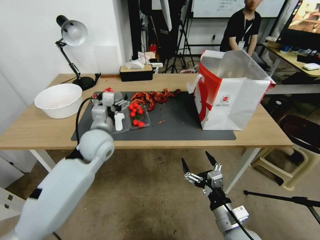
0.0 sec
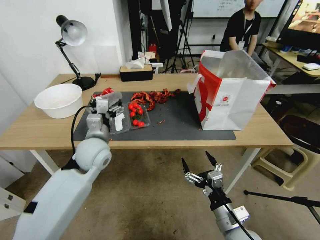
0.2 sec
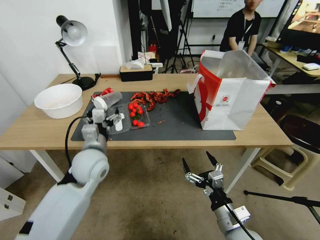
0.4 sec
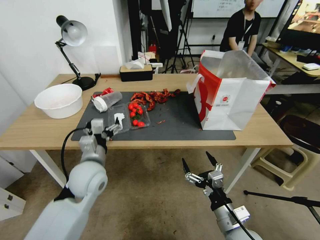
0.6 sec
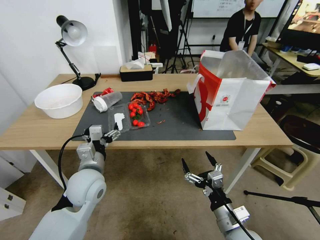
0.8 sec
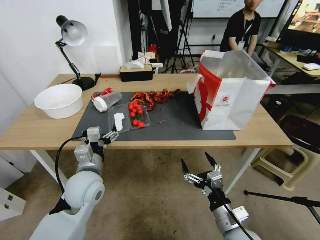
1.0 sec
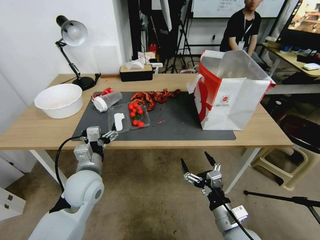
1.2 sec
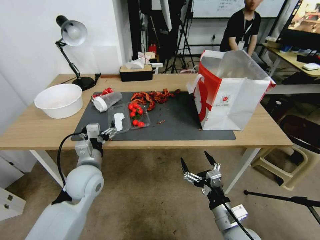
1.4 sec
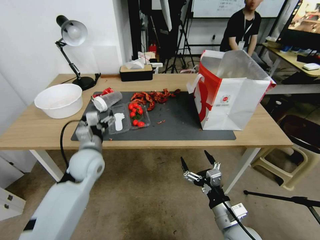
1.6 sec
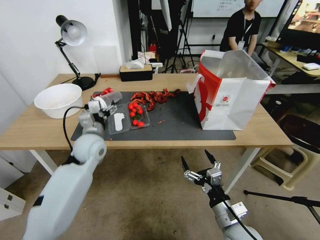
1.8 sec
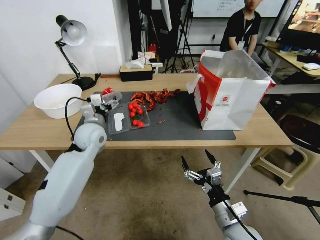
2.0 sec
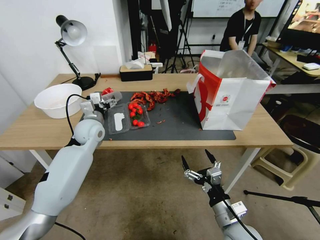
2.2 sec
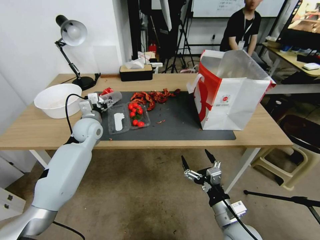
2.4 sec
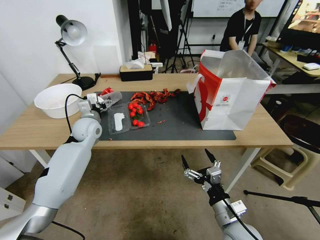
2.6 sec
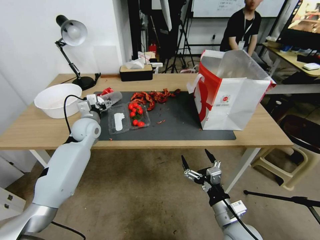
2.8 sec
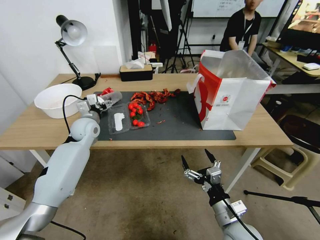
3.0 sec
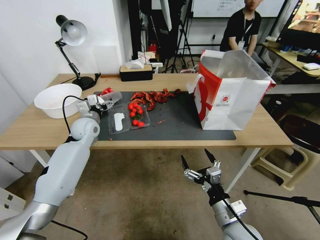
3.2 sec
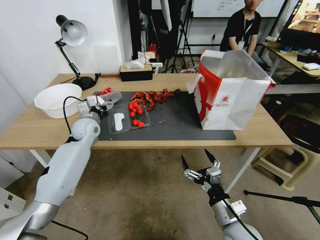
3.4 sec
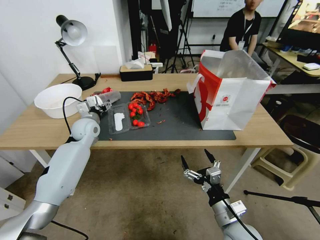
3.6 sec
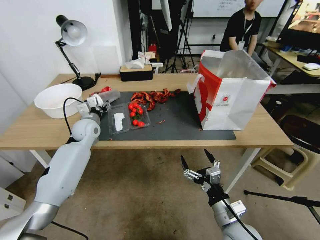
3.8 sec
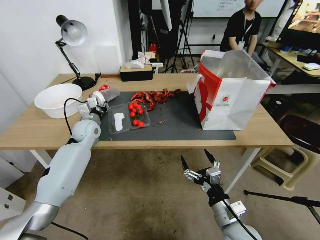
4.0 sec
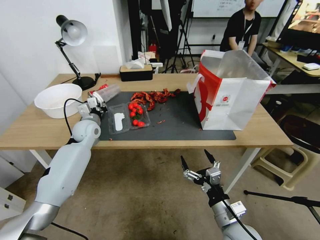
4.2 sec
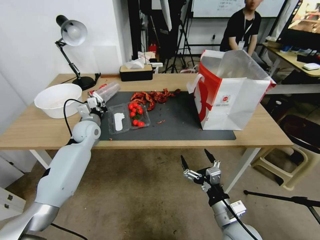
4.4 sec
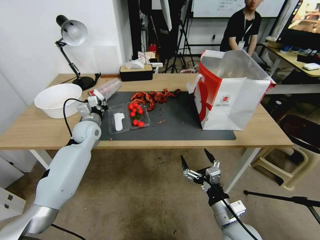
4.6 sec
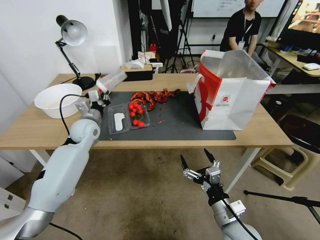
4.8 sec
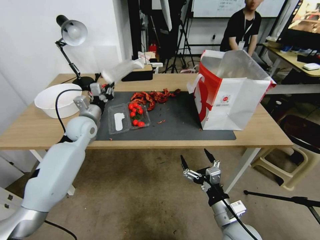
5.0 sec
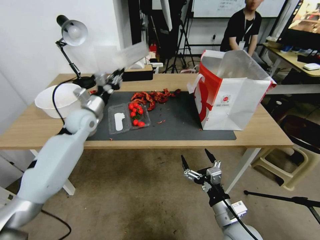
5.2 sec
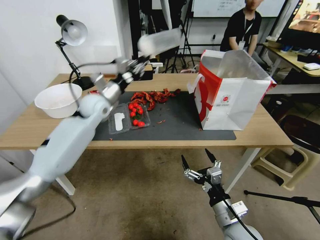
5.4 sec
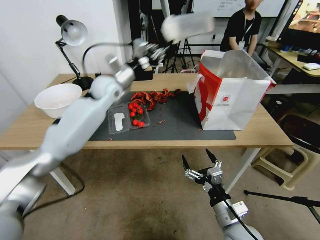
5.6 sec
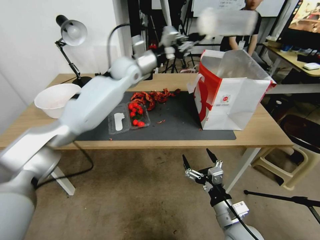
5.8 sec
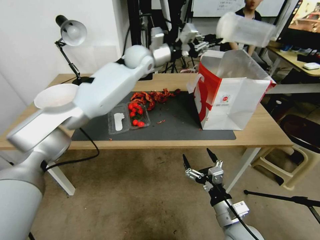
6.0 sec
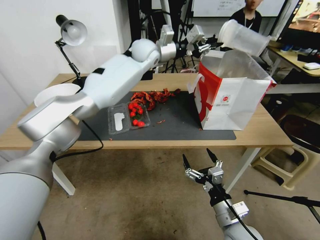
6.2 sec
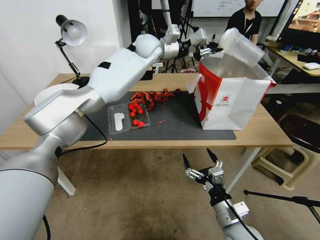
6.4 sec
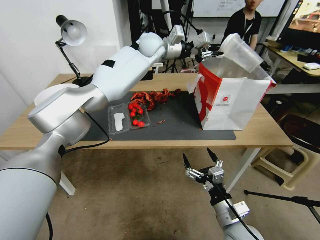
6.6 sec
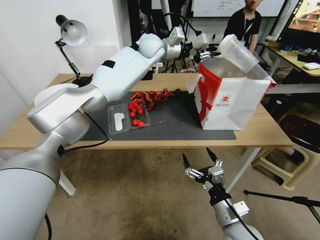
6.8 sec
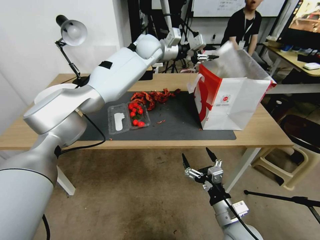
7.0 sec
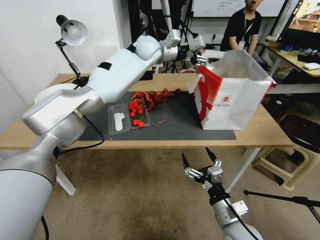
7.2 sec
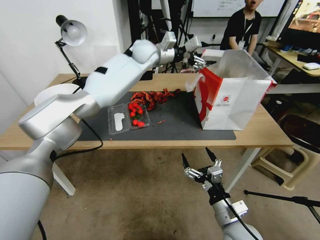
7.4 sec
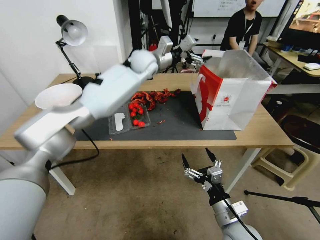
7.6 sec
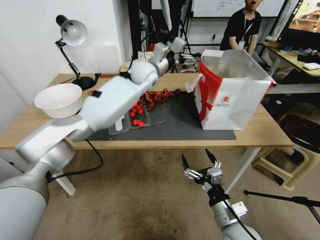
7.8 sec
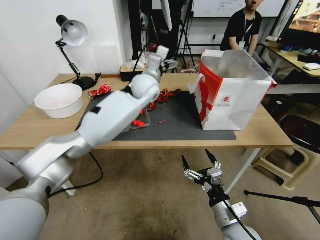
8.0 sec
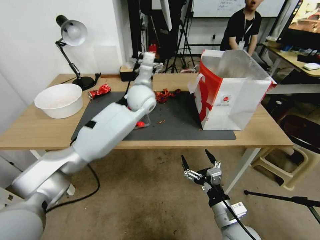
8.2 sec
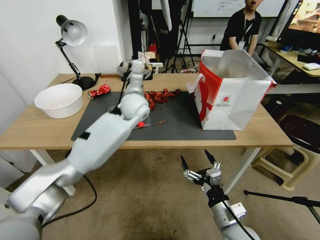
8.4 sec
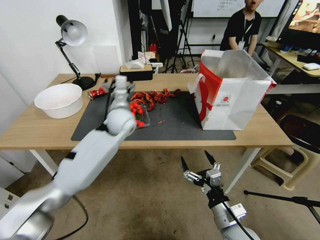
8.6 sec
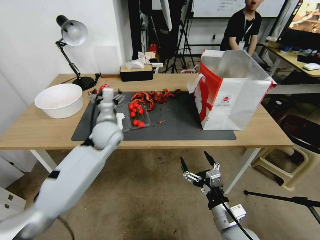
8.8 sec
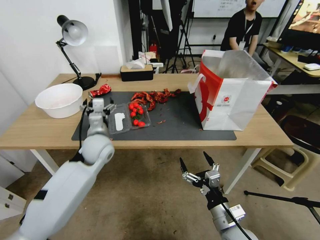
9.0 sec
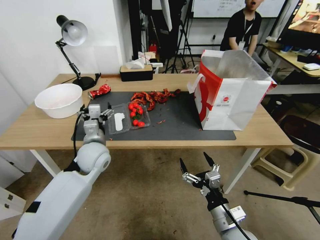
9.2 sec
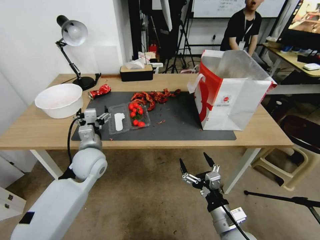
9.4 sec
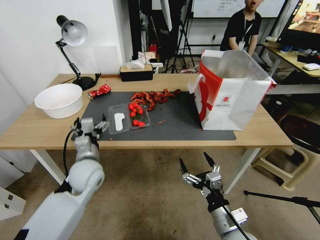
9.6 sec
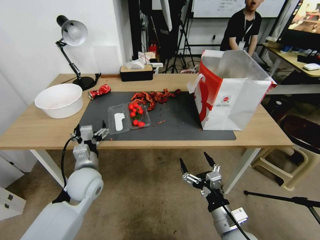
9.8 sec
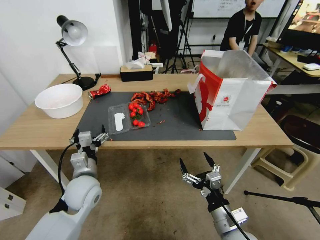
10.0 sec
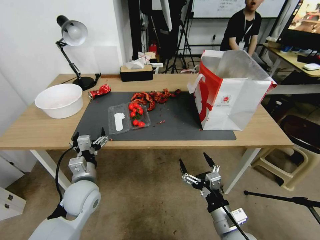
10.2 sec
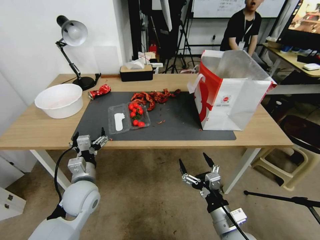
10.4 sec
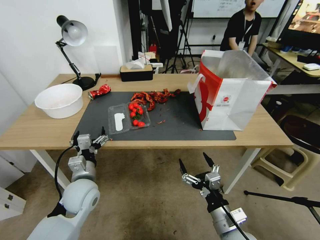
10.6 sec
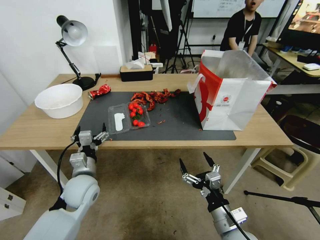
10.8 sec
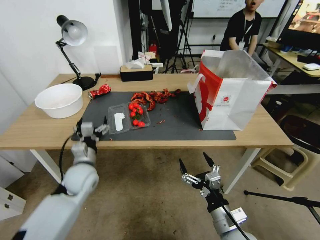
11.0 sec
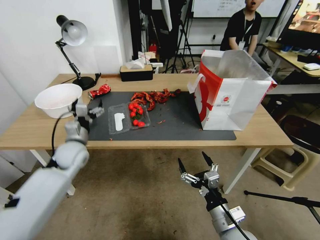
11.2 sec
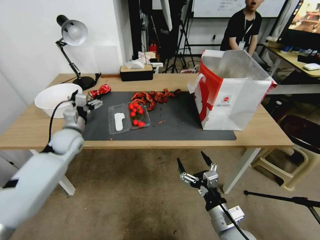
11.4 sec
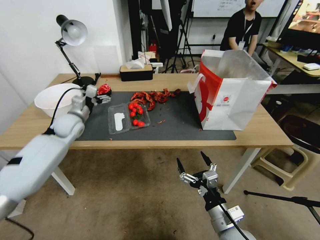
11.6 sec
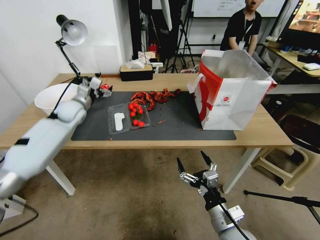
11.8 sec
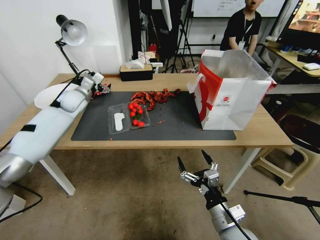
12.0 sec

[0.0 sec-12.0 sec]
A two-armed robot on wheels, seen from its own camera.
0.0 sec to 1.6 sec: The left gripper heads downward, covering some 5 cm, and reaches about 10 cm backward, then returns.
1.6 sec to 3.0 sec: The left gripper shifts some 15 cm forward and to the left.
3.0 sec to 4.4 sec: The left gripper closes.
4.4 sec to 6.0 sec: The left gripper shifts roughly 35 cm upward, to the right and forward.
6.0 sec to 7.6 sec: The left gripper opens its fingers.
7.6 sec to 9.0 sec: The left gripper goes about 35 cm backward, downward and to the left.
9.0 sec to 10.4 sec: The left gripper travels backward and downward by about 15 cm.
10.4 sec to 12.0 sec: The left gripper goes about 30 cm forward.

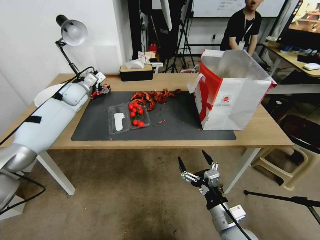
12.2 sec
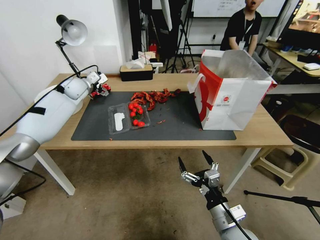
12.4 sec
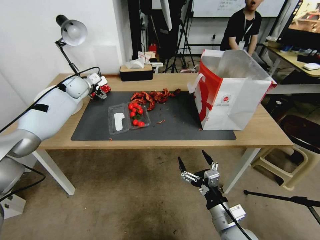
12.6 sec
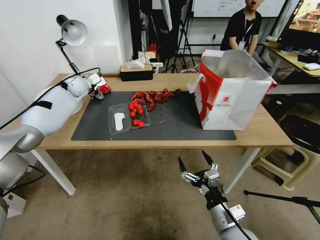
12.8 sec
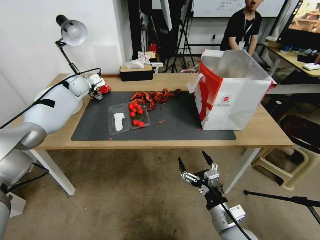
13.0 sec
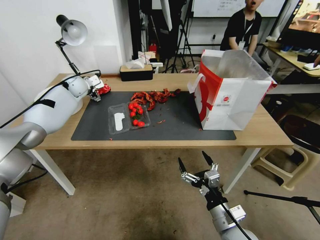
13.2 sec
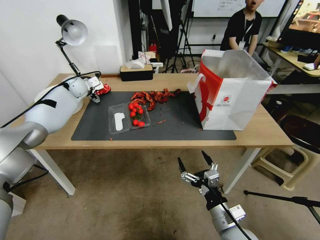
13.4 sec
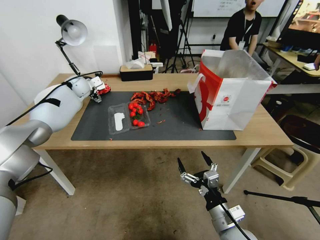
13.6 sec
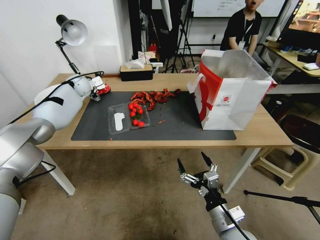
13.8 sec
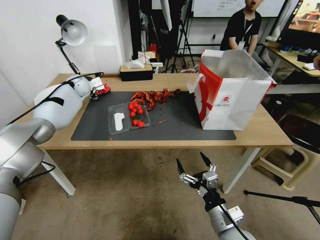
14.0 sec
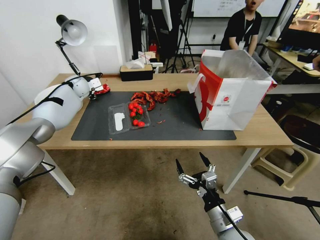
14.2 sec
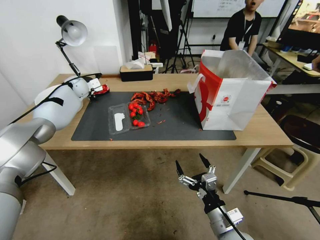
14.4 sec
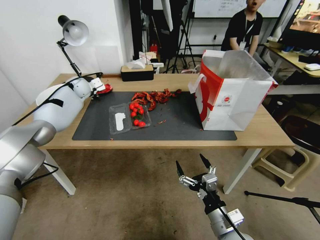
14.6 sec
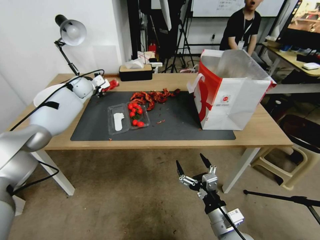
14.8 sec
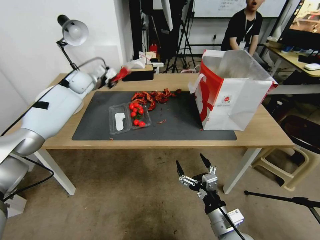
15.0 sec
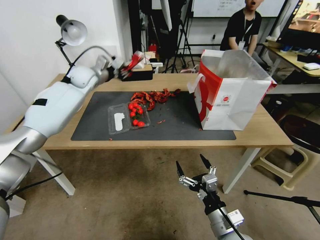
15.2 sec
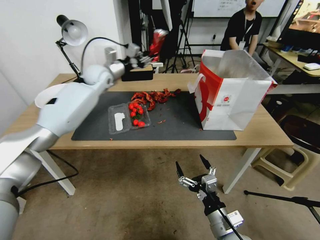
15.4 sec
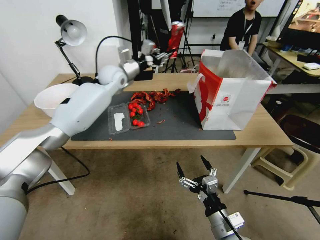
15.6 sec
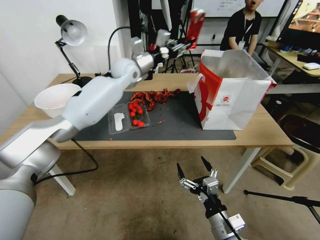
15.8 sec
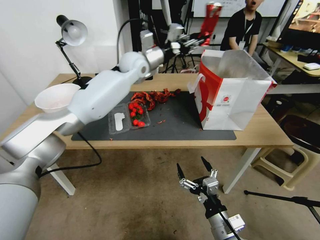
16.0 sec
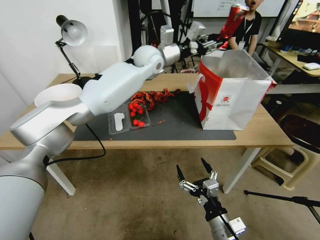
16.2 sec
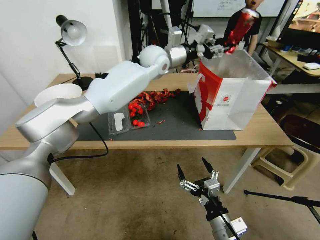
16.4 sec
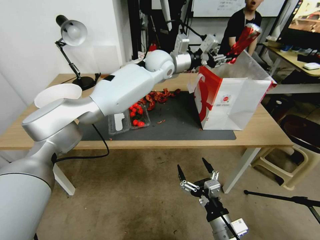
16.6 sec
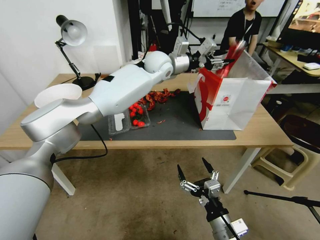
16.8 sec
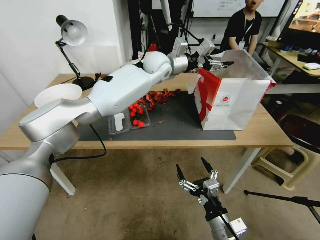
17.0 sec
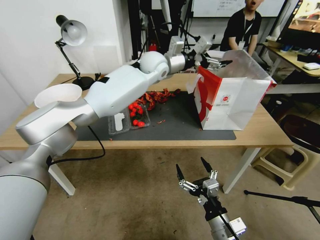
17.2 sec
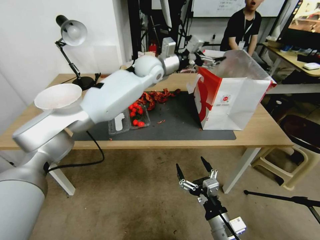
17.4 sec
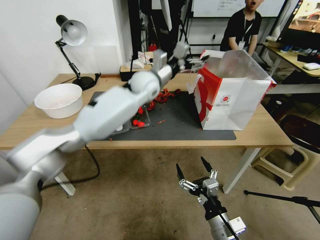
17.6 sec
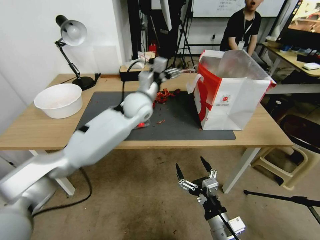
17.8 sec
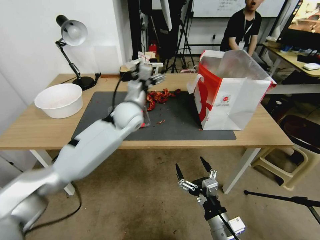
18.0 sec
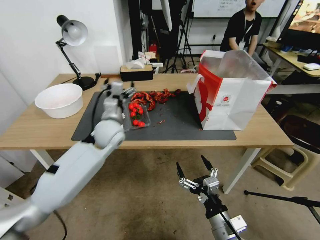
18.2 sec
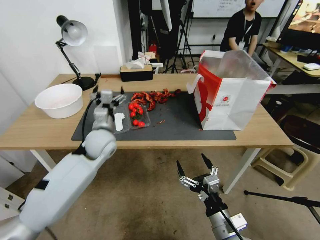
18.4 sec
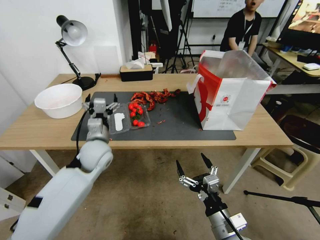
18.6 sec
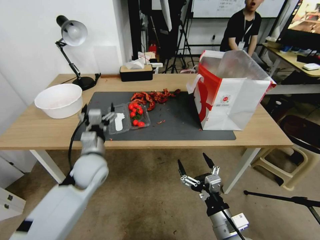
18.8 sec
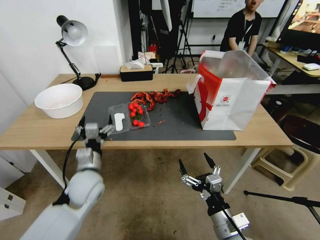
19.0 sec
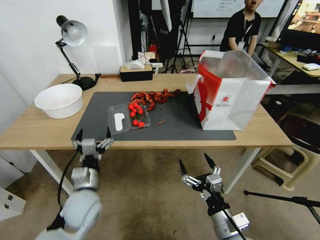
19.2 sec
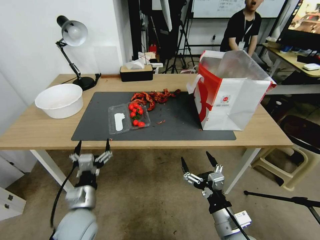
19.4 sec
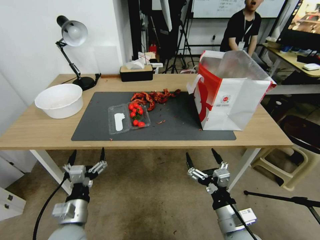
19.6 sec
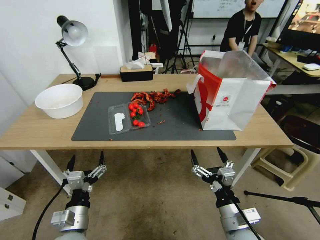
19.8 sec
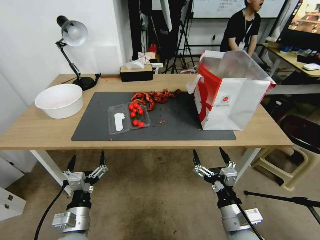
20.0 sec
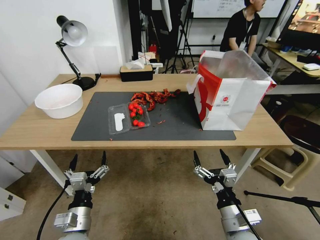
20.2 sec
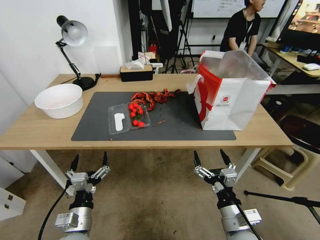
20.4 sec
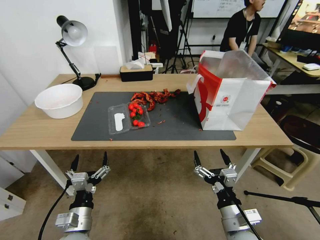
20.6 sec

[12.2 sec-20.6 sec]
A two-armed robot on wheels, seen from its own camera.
12.2 sec to 13.6 sec: The left gripper moves forward, about 10 cm.
13.6 sec to 15.0 sec: The left gripper changes place by roughly 5 cm, and closes.
15.0 sec to 16.4 sec: The left gripper shifts approximately 30 cm to the right.
16.4 sec to 17.8 sec: The left gripper heads downward, backward and to the left, covering approximately 15 cm, and opens.
17.8 sec to 19.2 sec: The left gripper heads backward, downward and to the left, covering approximately 35 cm.
19.2 sec to 20.6 sec: The left gripper heads backward, covering some 10 cm.
